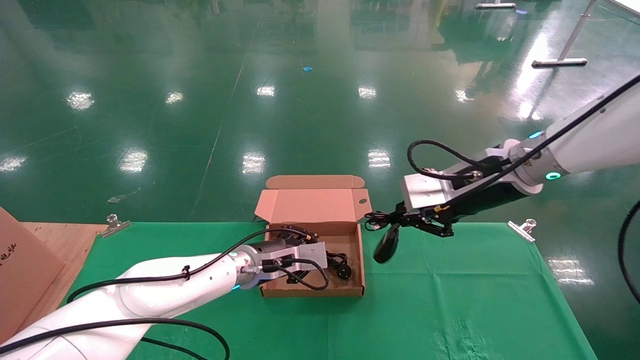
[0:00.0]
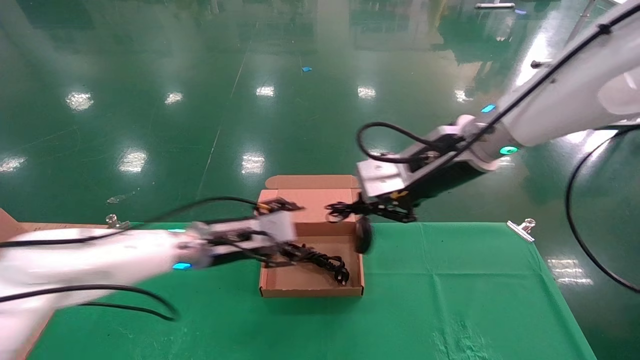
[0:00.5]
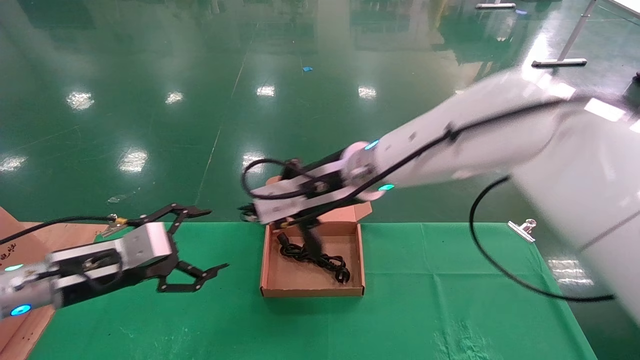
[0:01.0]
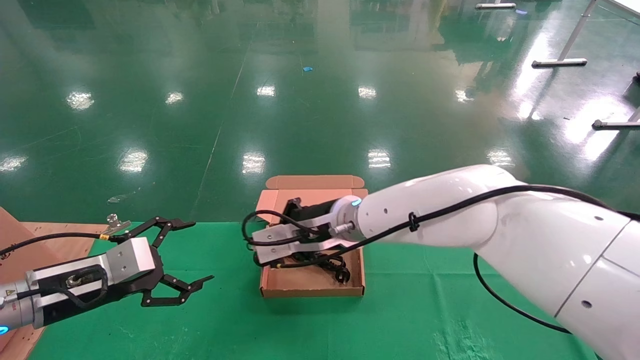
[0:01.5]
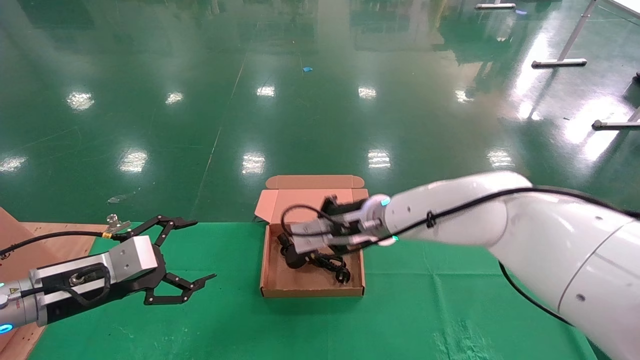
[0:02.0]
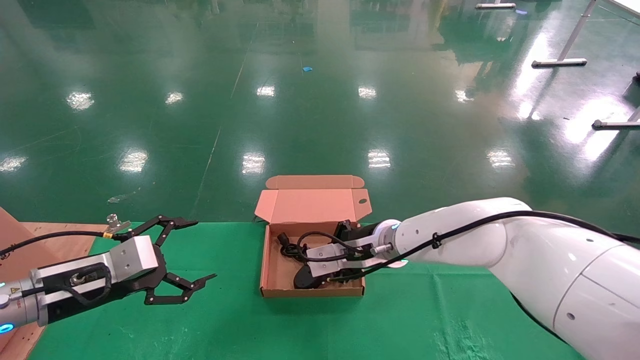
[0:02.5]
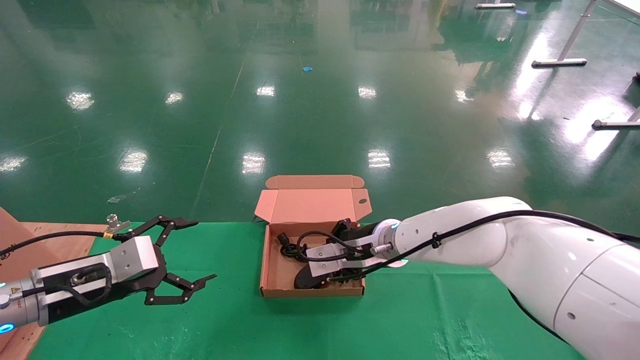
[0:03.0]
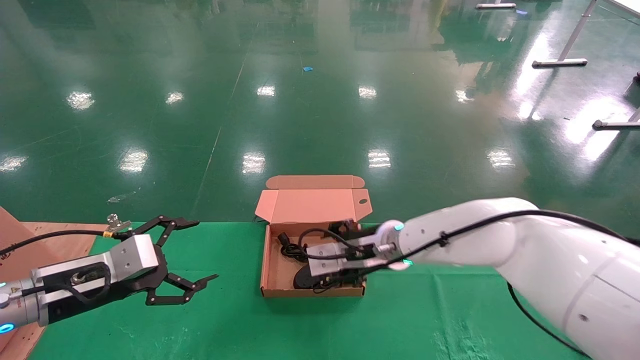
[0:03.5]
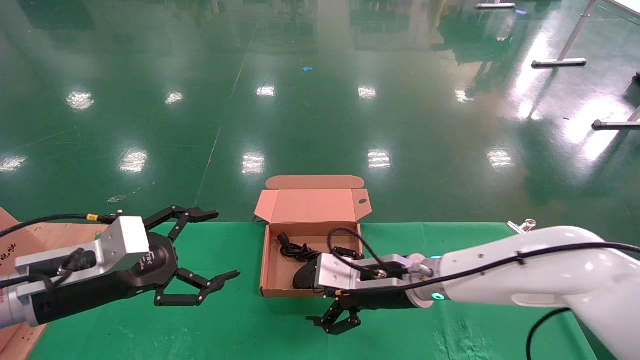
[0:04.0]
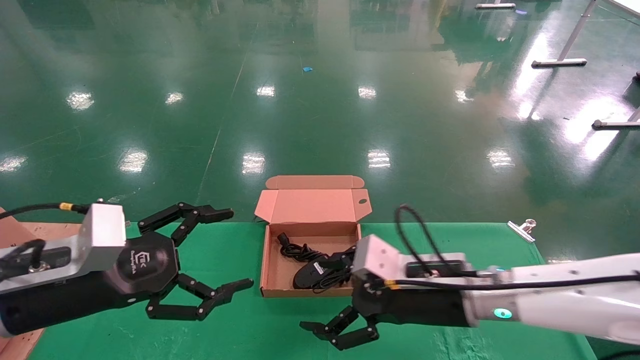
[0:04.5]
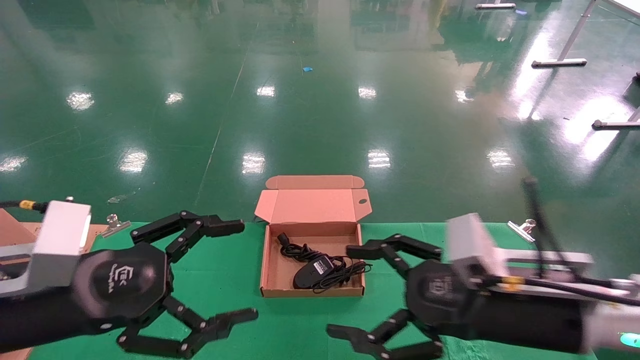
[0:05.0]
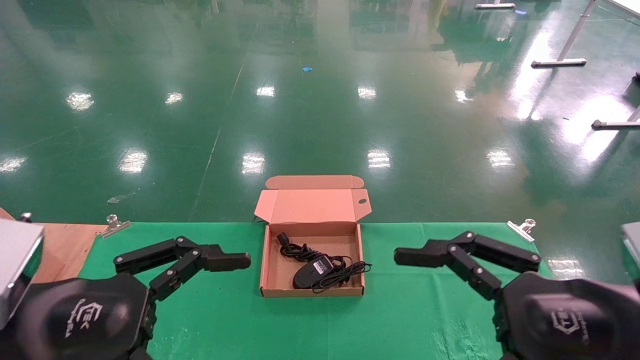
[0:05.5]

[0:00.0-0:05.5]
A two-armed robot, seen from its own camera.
Step, 0:00.0 to 0:03.0: Place the mouse and power cord into the box.
0:00.0 to 0:02.0: The right gripper is displaced to the left and downward by approximately 20 cm. The left gripper heads to the left and backward, covering about 25 cm, and opens its fingers.
0:02.0 to 0:03.5: The right gripper shifts by approximately 5 cm, and opens its fingers.
0:03.5 to 0:05.5: The left gripper is displaced backward, upward and to the right by some 20 cm, while the right gripper travels backward and to the right by some 30 cm, and opens up.
